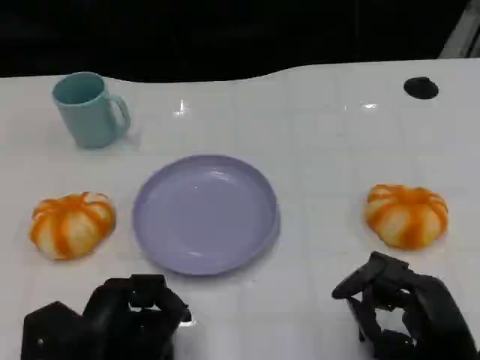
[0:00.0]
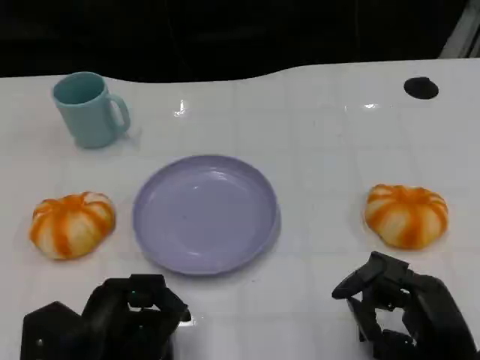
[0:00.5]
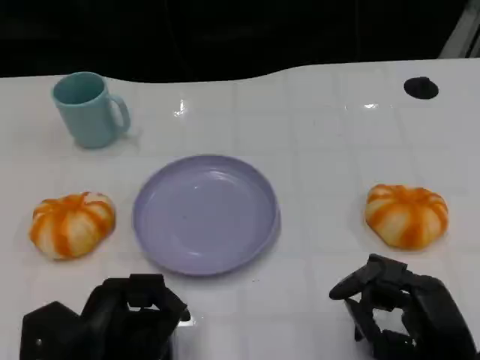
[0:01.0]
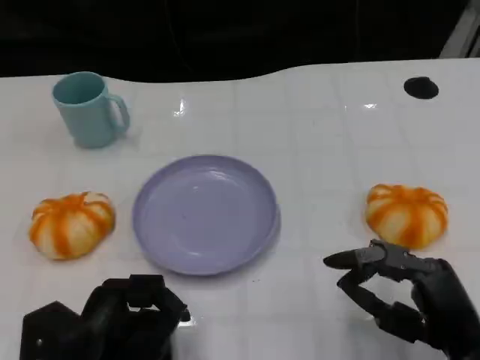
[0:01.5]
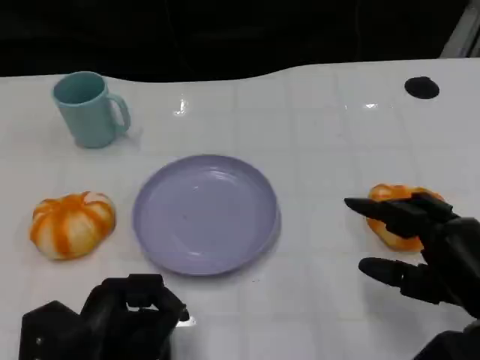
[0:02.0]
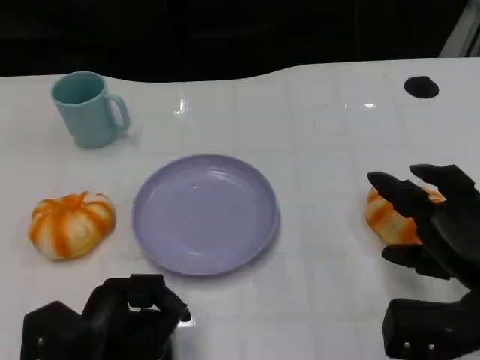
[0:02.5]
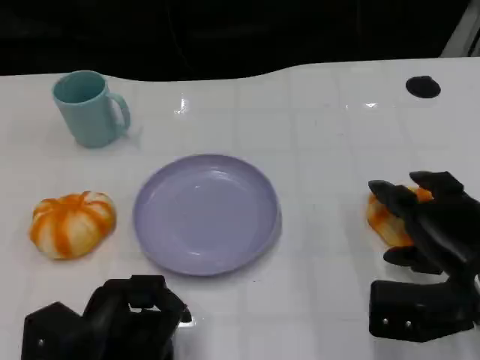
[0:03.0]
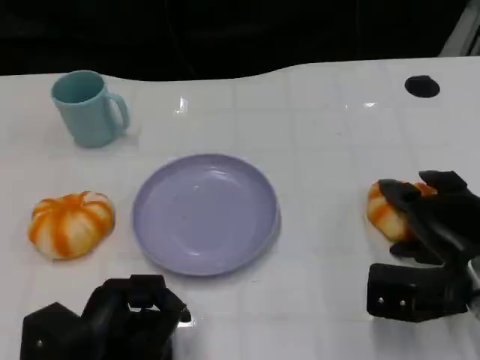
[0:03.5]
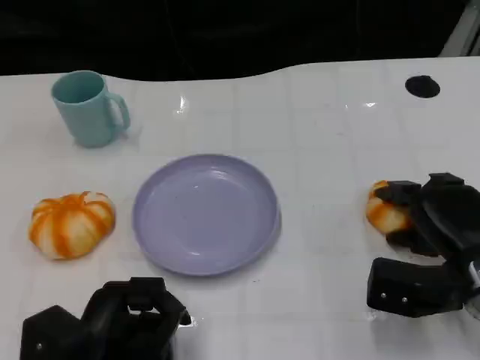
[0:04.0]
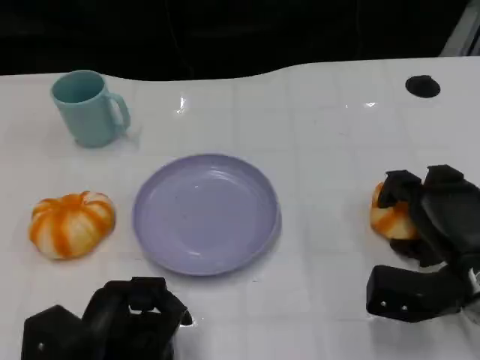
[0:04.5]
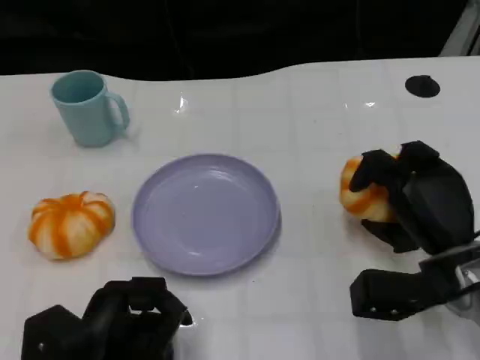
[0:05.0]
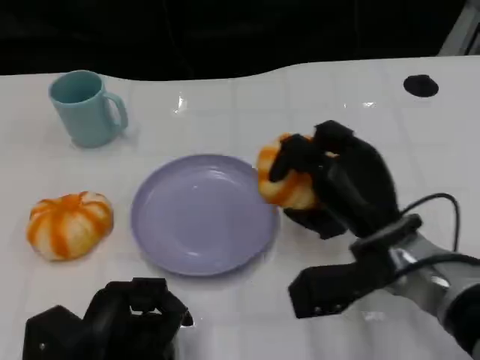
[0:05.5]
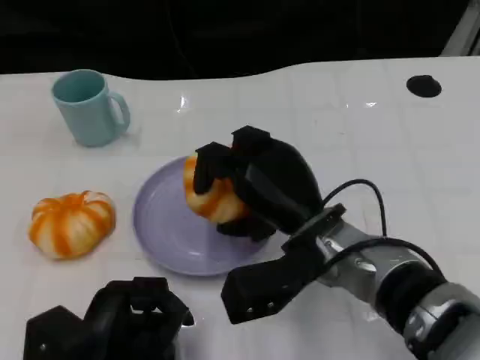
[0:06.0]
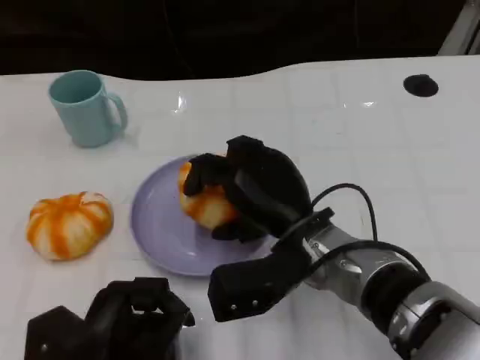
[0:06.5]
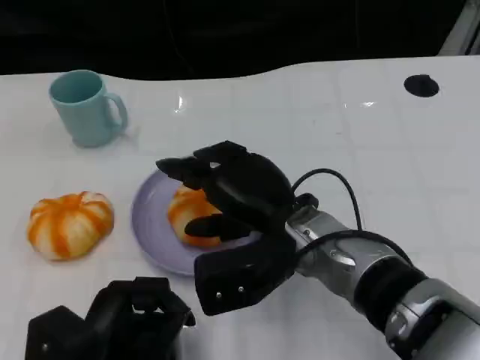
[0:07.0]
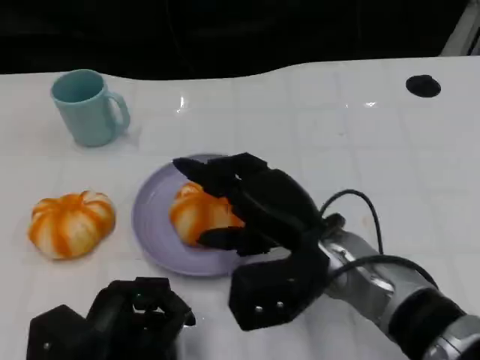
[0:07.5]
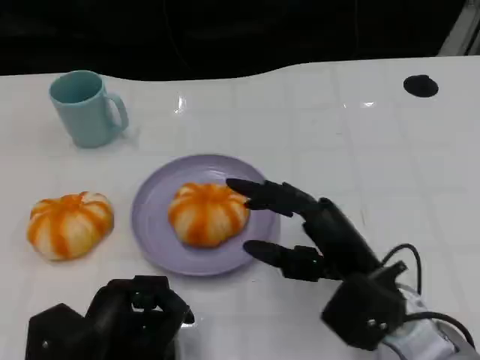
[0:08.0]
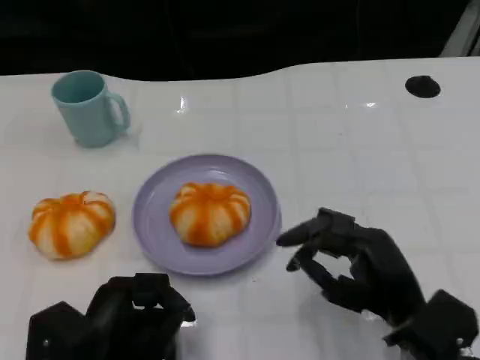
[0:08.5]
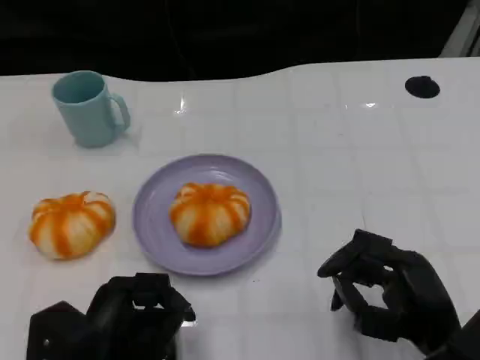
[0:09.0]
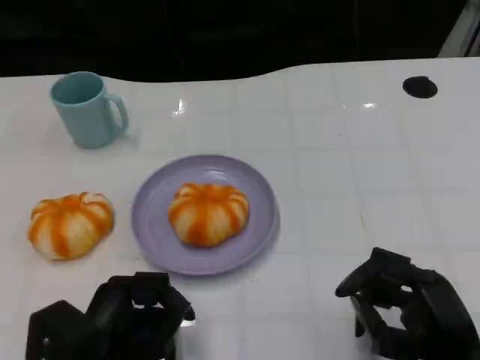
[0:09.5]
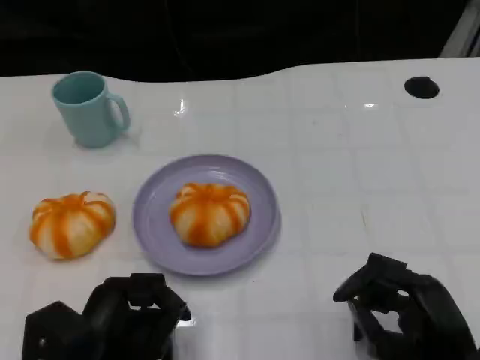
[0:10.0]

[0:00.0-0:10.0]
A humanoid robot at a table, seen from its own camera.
Task of the whole recording: Grasp the bread from the table and place it into the plate.
0:00.0 to 0:02.0: The right hand shifts by approximately 5 cm.
0:02.0 to 0:04.0: The right hand shifts approximately 5 cm forward.
0:04.0 to 0:06.0: The right hand shifts about 15 cm to the left.
0:06.0 to 0:08.0: The right hand shifts roughly 5 cm to the right.
0:08.0 to 0:10.0: The right hand shifts approximately 10 cm to the right and backward.

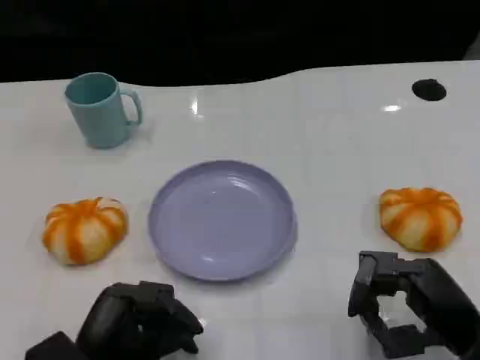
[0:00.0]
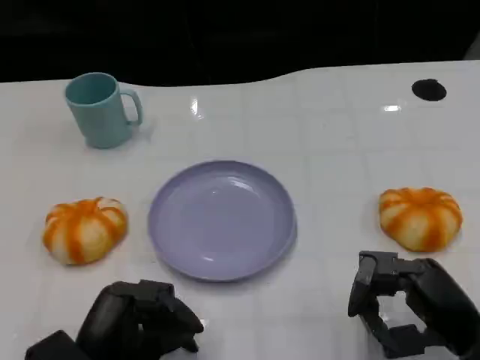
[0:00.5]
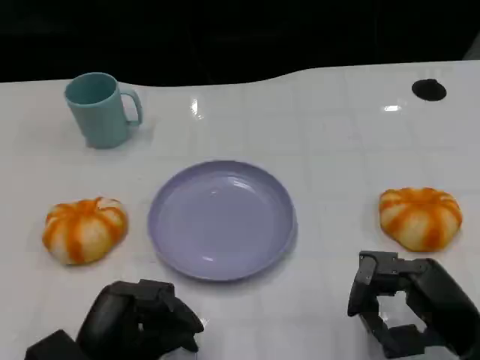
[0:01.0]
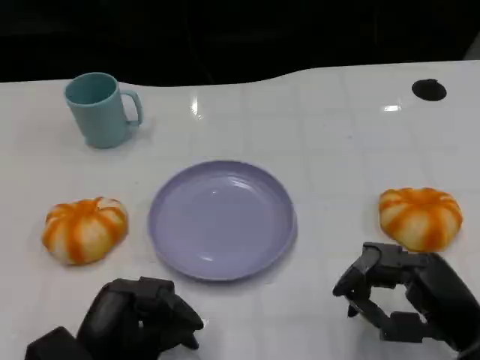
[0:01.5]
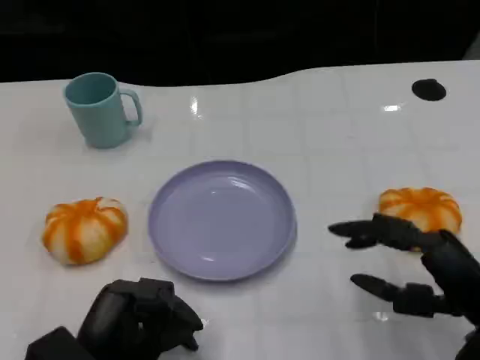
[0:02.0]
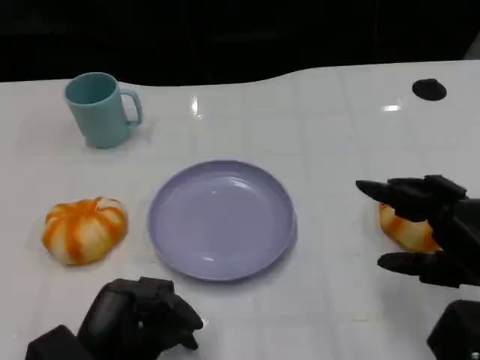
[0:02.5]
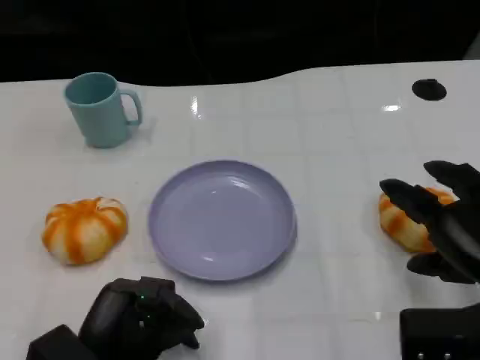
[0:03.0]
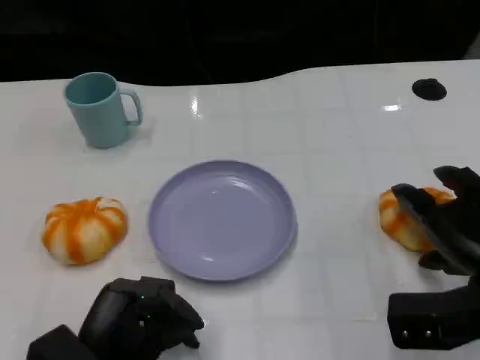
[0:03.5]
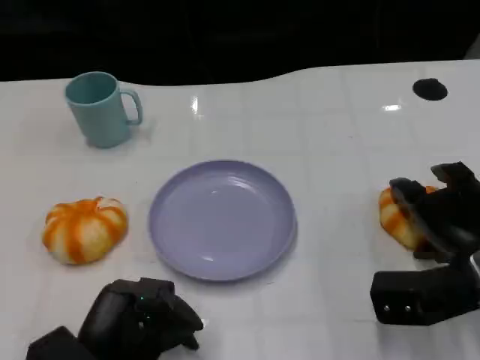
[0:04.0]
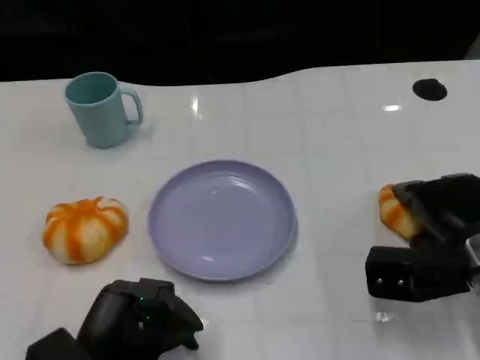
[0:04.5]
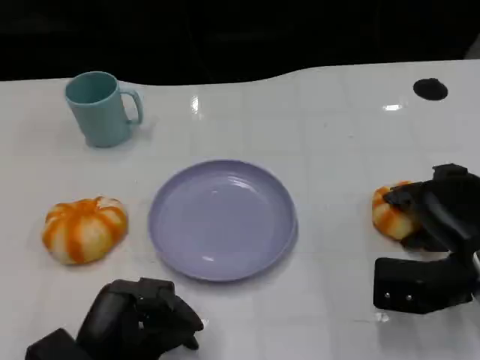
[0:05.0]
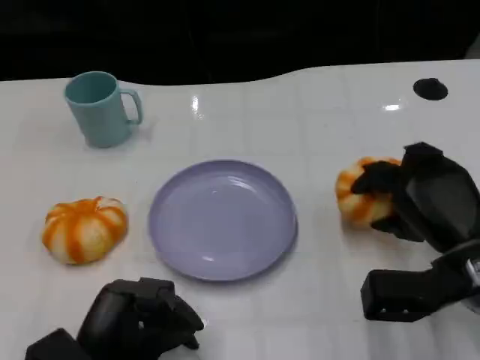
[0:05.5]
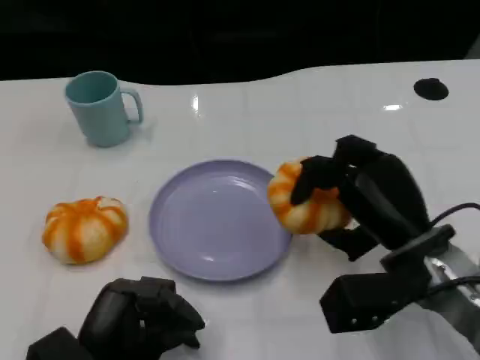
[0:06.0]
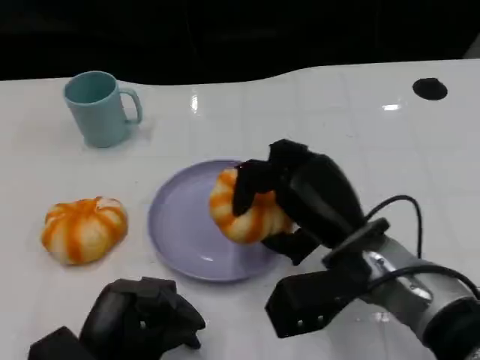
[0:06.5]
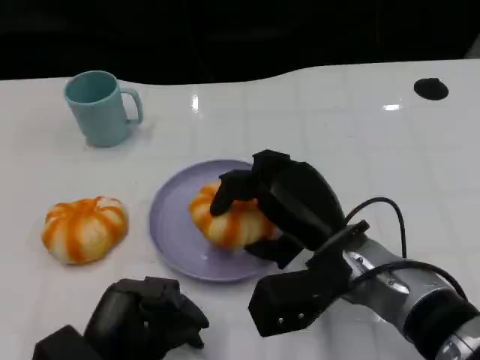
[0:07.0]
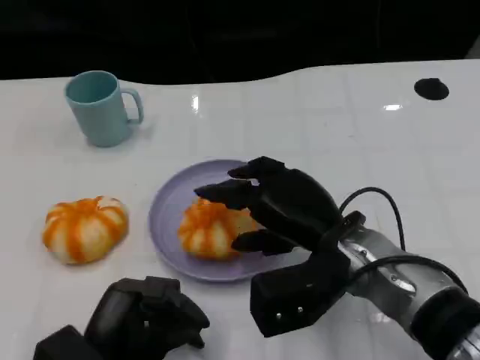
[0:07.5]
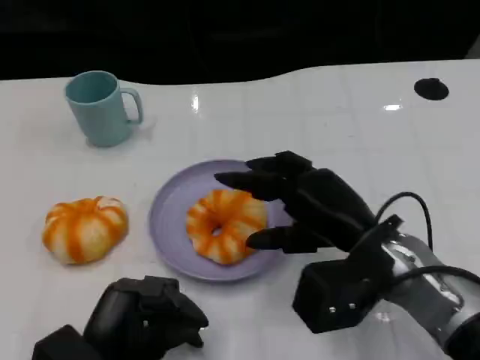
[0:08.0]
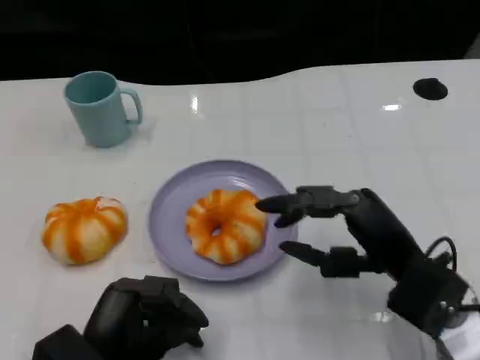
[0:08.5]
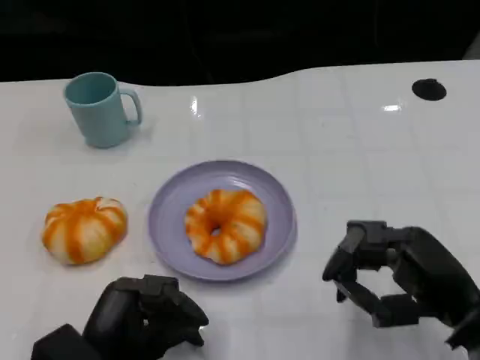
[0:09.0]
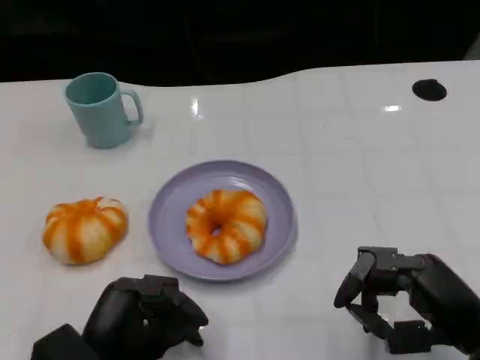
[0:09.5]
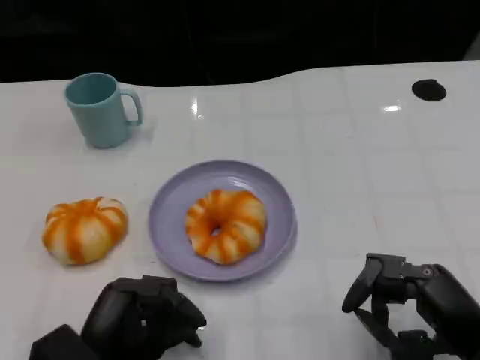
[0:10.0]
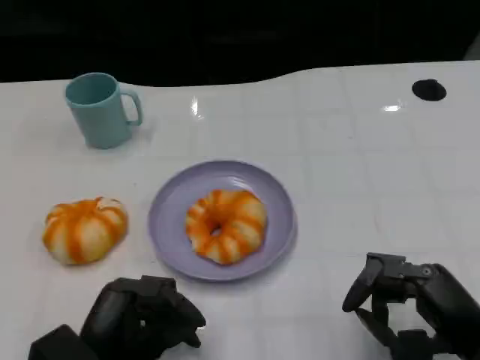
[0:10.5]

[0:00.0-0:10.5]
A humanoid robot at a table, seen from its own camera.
Task of the whole recording: Grasp the bread from the table and place it into the plate.
0:00.0 to 0:02.0: There are only small adjustments of the hands.
0:02.0 to 0:04.0: The right hand is displaced forward by some 5 cm.
0:04.0 to 0:06.5: The right hand shifts roughly 15 cm to the left.
0:06.5 to 0:08.5: The right hand goes some 5 cm to the right.
0:08.5 to 0:10.5: The right hand heads backward and to the right, covering some 10 cm.

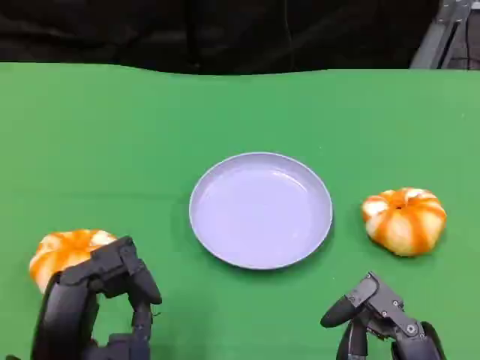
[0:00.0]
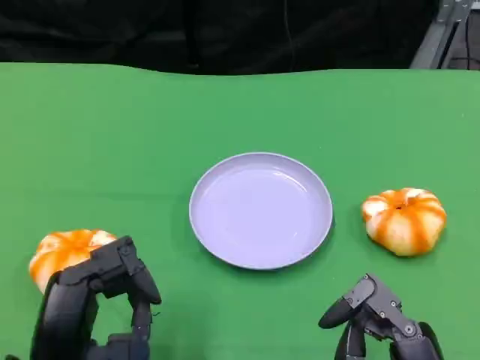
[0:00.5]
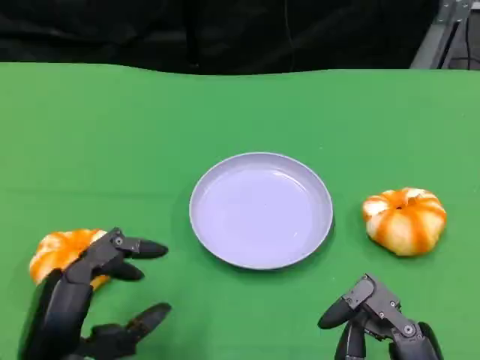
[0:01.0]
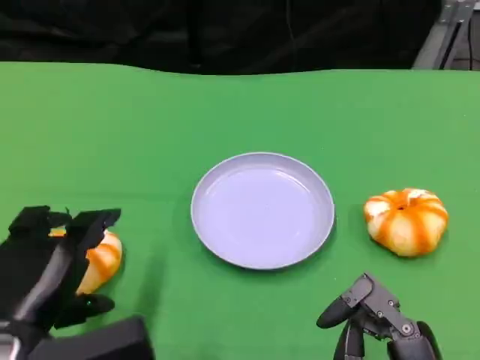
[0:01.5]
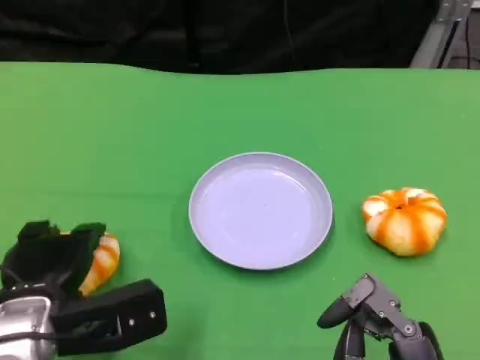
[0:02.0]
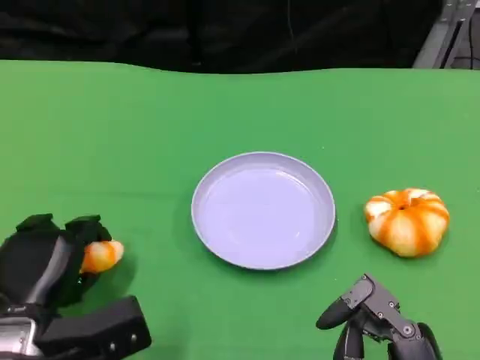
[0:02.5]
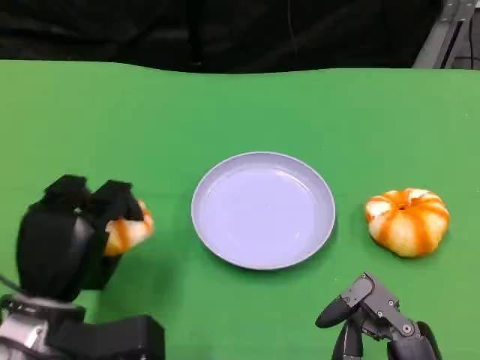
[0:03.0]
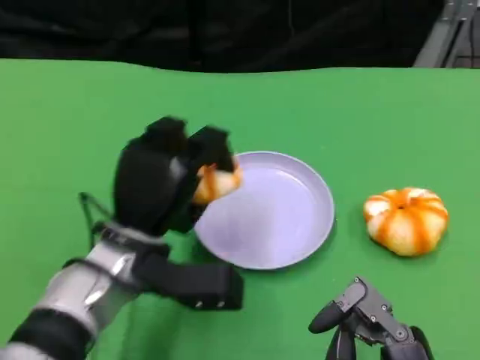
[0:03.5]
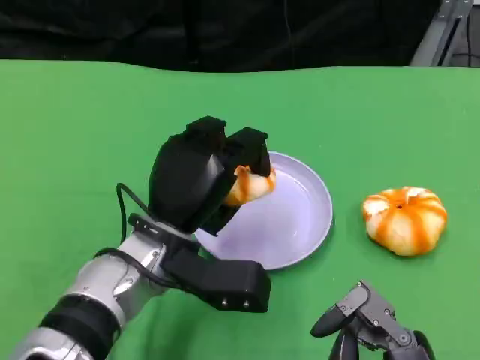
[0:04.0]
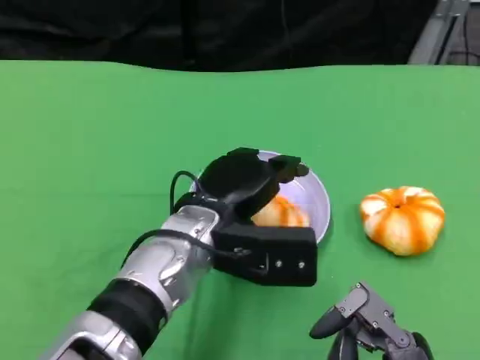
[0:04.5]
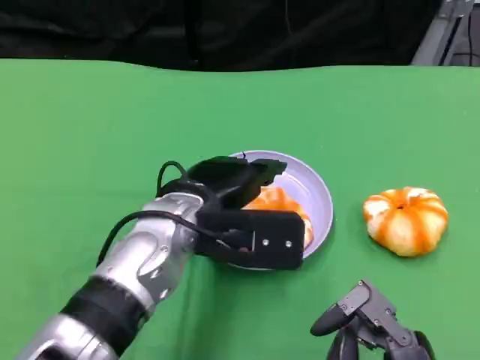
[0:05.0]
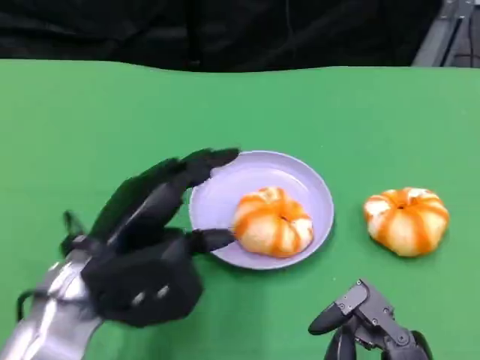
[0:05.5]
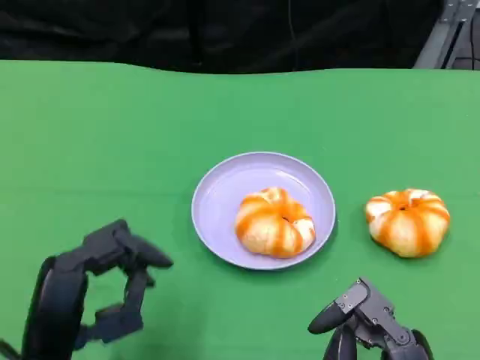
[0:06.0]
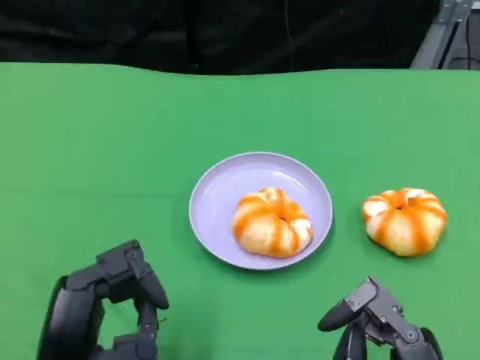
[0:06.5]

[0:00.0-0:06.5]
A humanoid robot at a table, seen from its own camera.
Task of the whole recording: Grasp the bread from the table and place it into the plate.
0:00.0 to 0:02.0: The left hand shifts approximately 10 cm forward.
0:02.0 to 0:04.5: The left hand is displaced to the right and forward by roughly 15 cm.
0:04.5 to 0:06.5: The left hand moves backward and to the left, about 20 cm.
